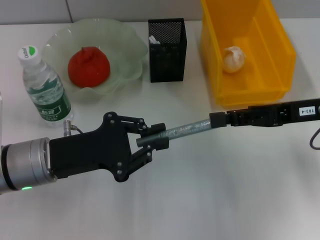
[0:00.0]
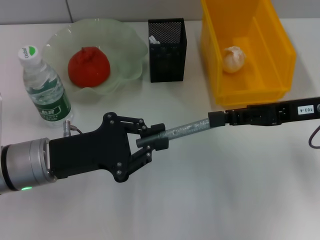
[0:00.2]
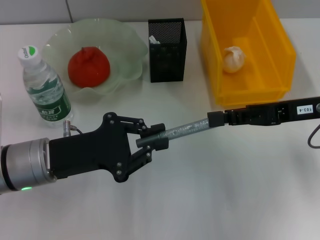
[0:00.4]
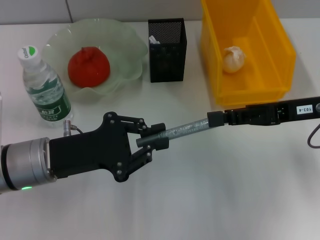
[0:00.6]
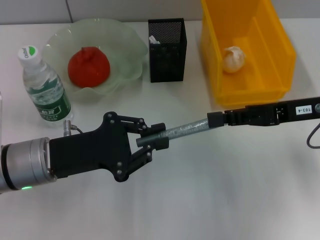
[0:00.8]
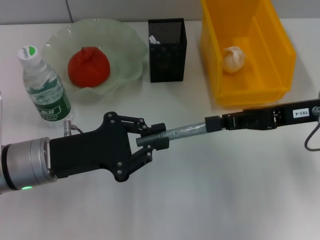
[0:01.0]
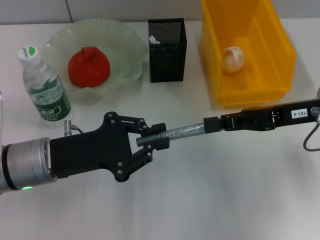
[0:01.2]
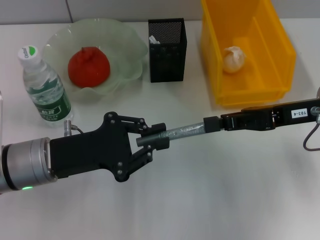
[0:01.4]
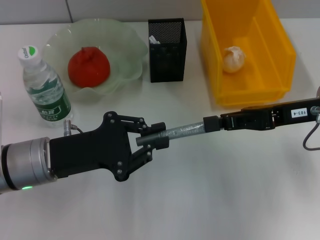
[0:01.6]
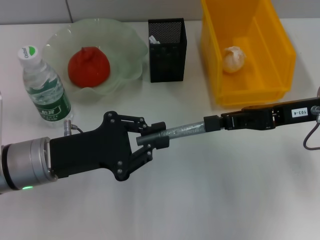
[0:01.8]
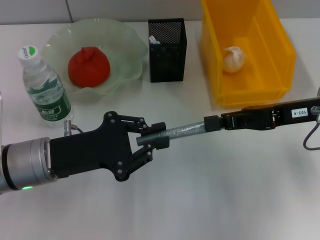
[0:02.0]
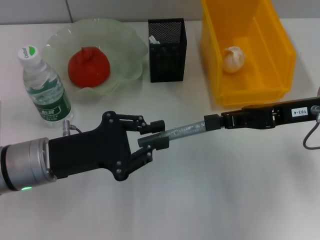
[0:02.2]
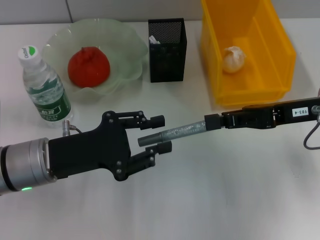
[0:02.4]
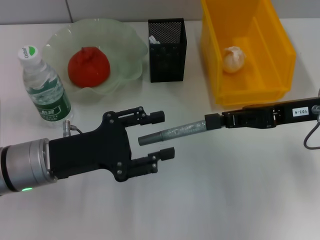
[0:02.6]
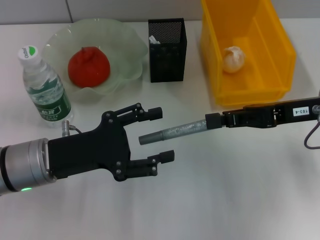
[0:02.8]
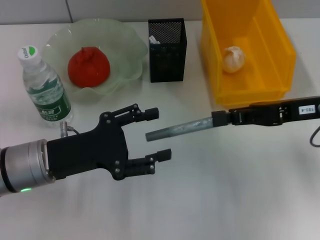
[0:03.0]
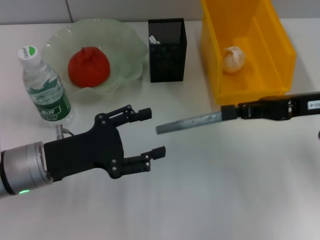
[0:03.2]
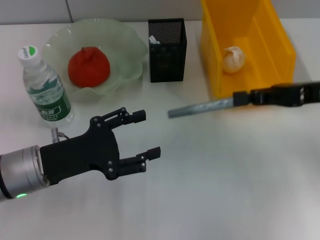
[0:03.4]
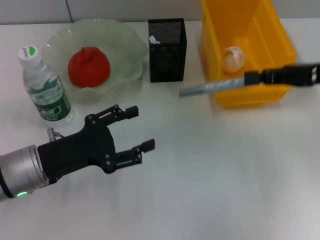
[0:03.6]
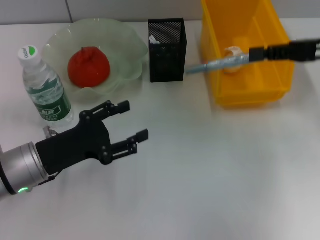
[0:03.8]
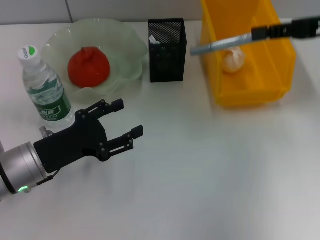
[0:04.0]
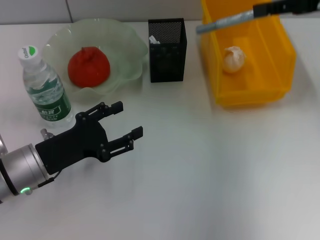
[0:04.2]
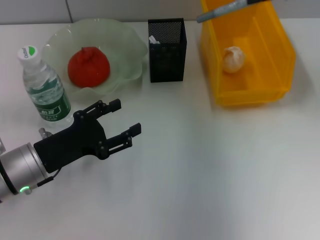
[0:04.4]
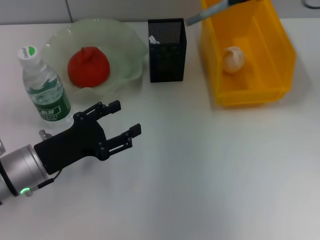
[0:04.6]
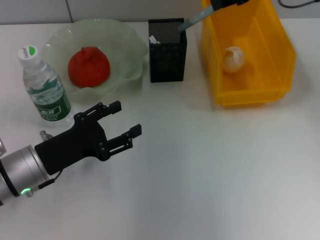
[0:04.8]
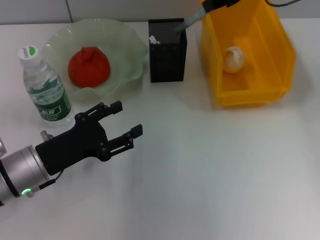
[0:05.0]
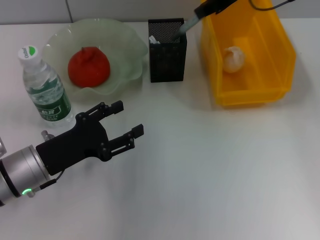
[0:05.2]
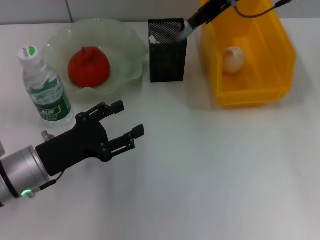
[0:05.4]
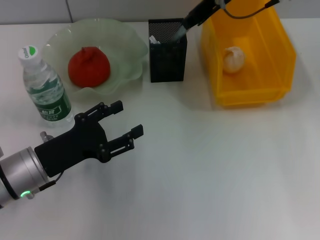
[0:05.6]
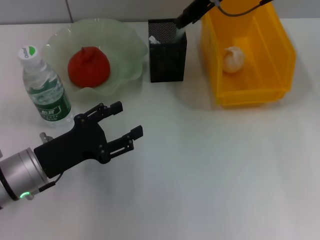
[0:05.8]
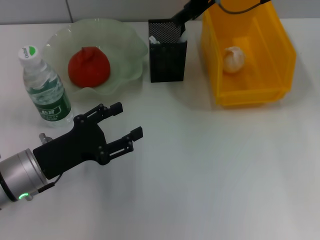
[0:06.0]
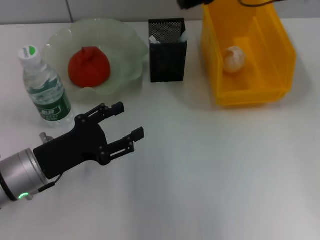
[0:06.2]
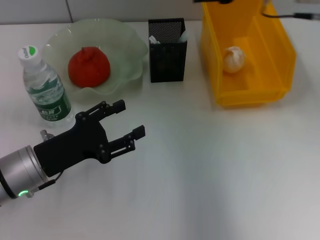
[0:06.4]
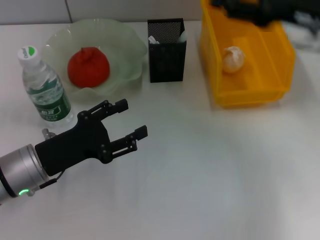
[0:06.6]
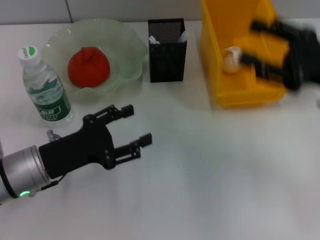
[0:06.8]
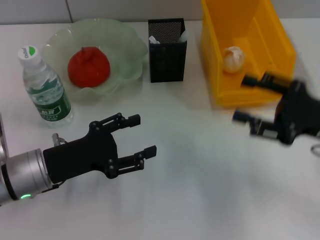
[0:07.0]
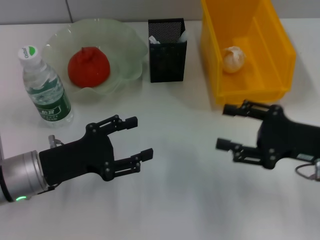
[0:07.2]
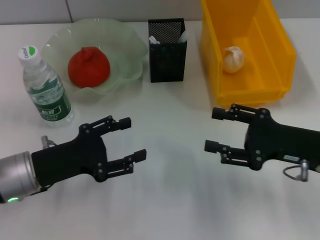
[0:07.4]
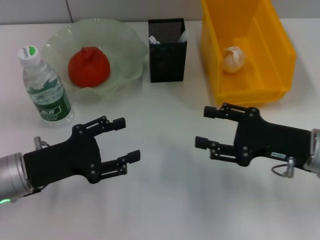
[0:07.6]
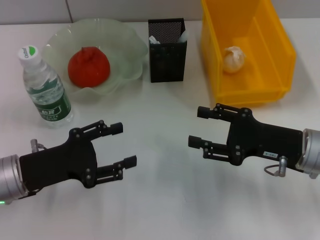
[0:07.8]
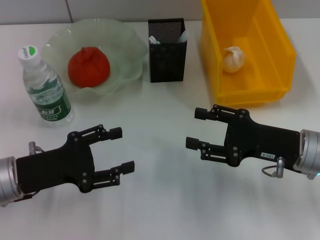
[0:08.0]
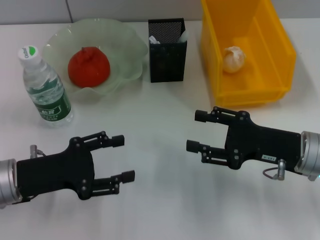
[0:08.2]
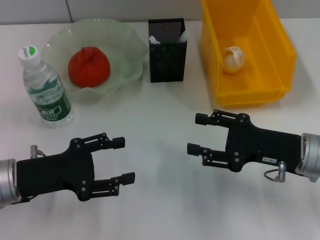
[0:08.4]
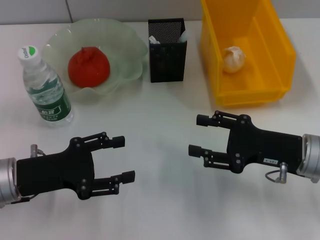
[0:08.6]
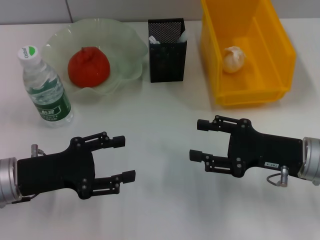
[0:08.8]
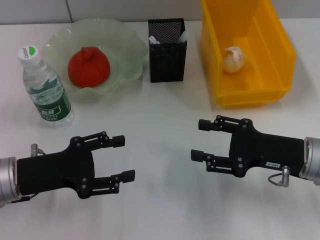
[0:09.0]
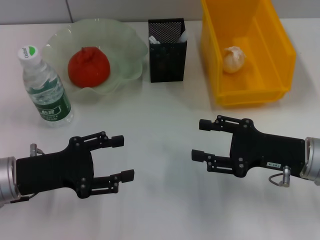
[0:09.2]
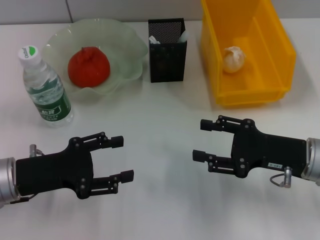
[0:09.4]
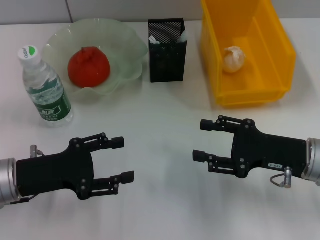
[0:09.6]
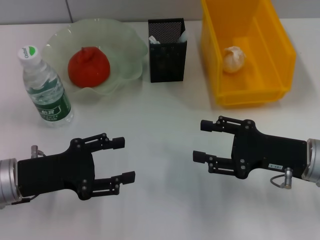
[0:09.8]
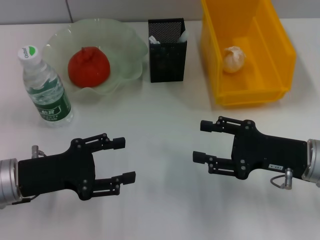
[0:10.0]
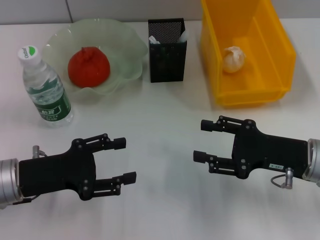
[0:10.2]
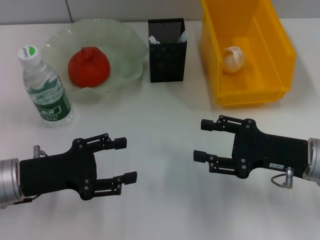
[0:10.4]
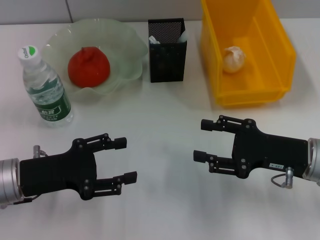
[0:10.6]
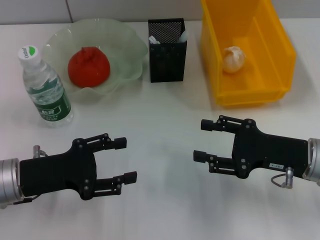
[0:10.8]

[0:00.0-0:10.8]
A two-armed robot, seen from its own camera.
Step, 0:00.0 to 0:02.6: Pass the gray glue from the left hand to the right hand.
Step, 0:02.8 to 0:05.8: Place the gray glue into the pen holder with the right hand.
0:00.0 to 0:01.6: Neither gripper changes place.
0:01.6 to 0:03.0: The left gripper opens.
0:03.0 to 0:04.6: The right gripper is displaced upward and forward by about 20 cm.
0:04.6 to 0:06.2: The right gripper is displaced to the left by about 10 cm, and opens up.
0:06.2 to 0:07.8: The right gripper moves downward, backward and to the right, some 25 cm.
0:07.8 to 0:09.2: The grippers stay close to where they were, moving slightly.
0:09.2 to 0:10.8: The two grippers keep their place.

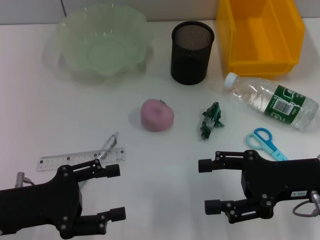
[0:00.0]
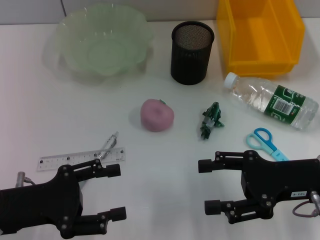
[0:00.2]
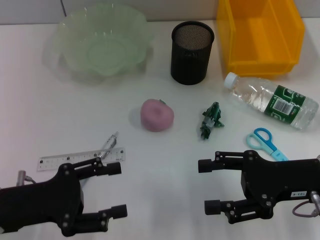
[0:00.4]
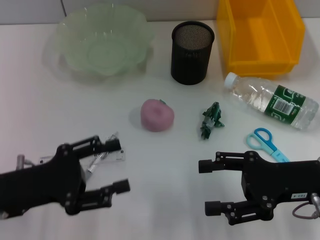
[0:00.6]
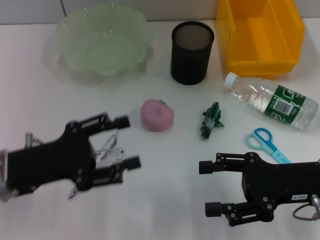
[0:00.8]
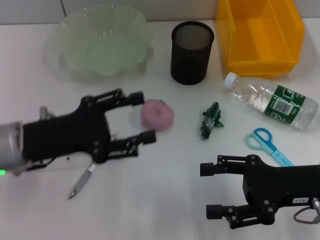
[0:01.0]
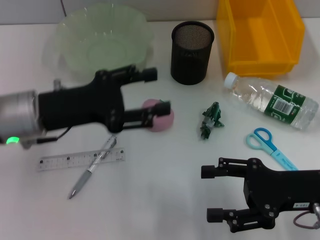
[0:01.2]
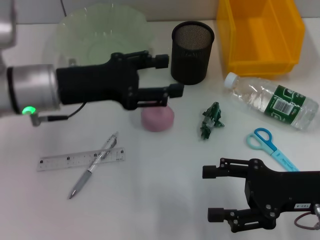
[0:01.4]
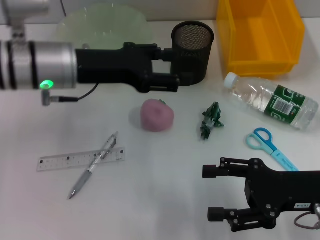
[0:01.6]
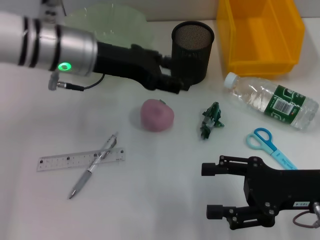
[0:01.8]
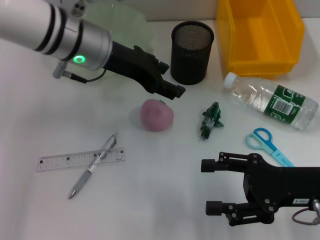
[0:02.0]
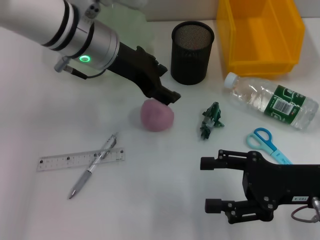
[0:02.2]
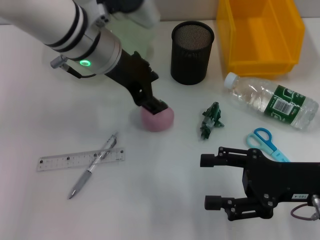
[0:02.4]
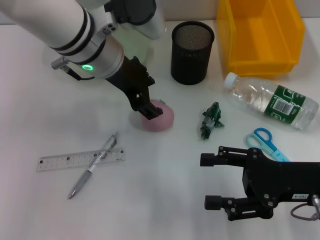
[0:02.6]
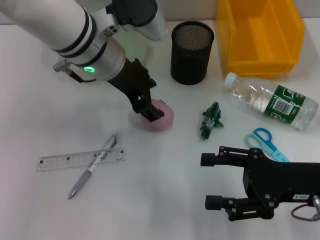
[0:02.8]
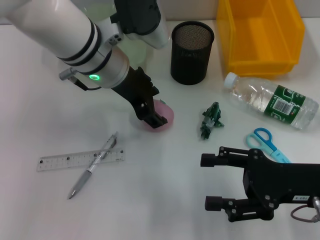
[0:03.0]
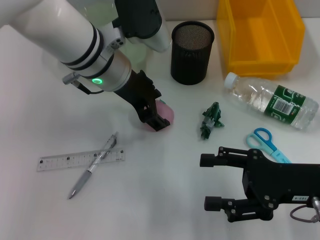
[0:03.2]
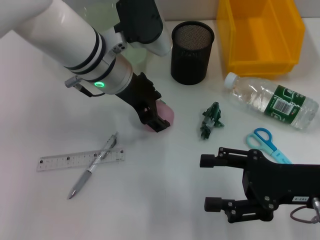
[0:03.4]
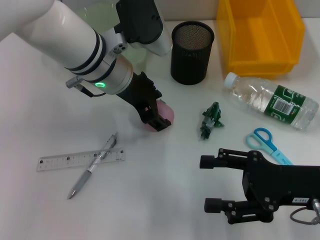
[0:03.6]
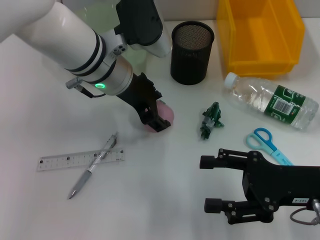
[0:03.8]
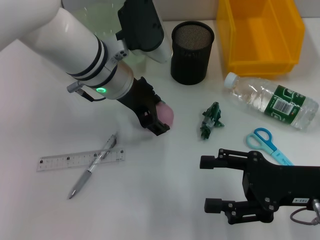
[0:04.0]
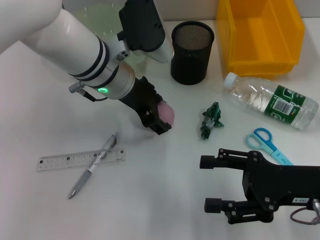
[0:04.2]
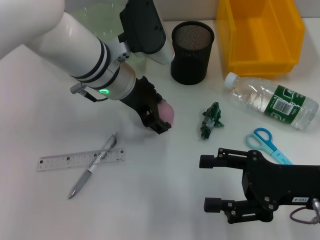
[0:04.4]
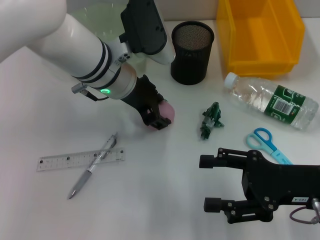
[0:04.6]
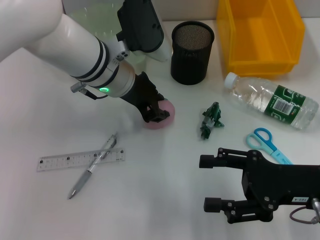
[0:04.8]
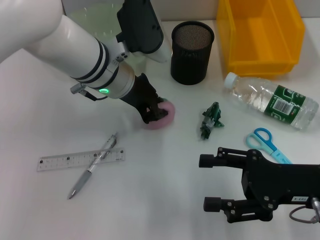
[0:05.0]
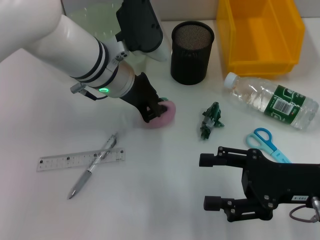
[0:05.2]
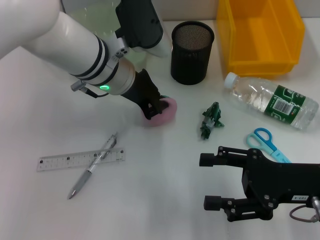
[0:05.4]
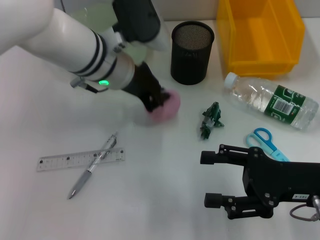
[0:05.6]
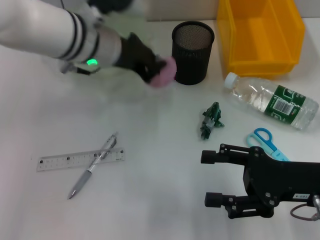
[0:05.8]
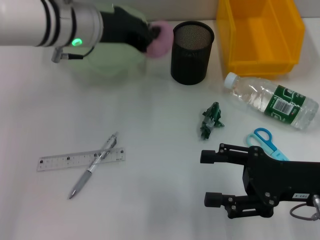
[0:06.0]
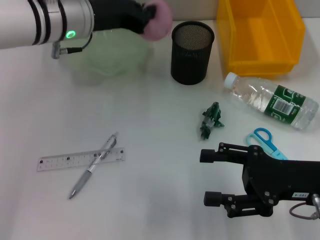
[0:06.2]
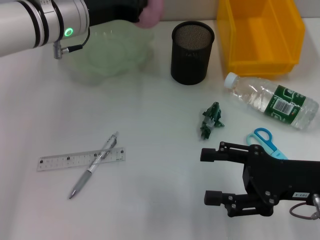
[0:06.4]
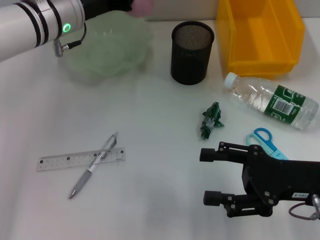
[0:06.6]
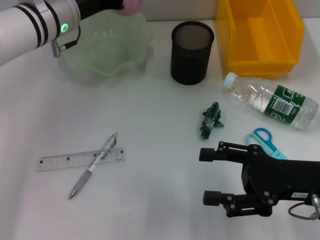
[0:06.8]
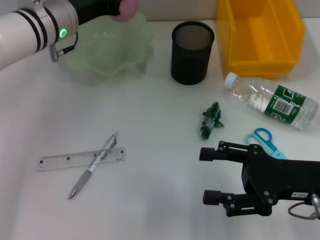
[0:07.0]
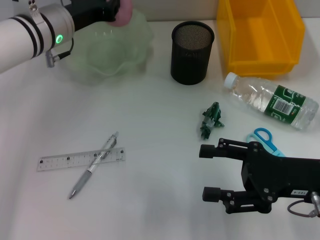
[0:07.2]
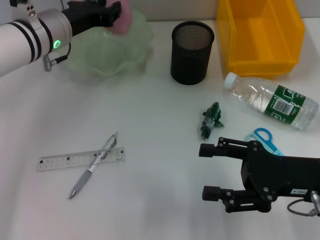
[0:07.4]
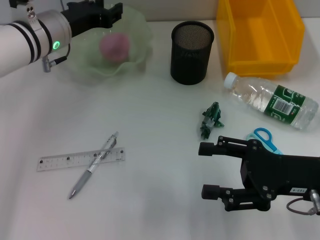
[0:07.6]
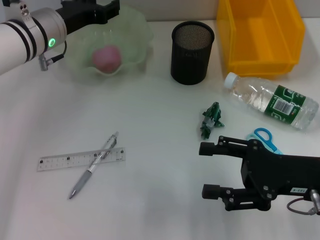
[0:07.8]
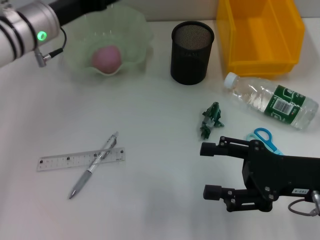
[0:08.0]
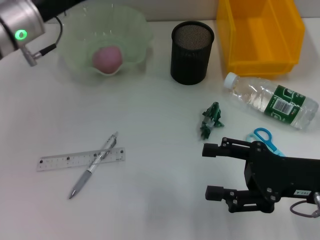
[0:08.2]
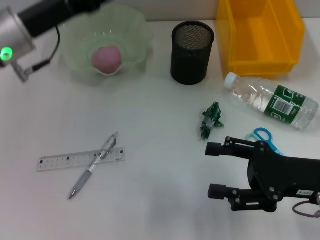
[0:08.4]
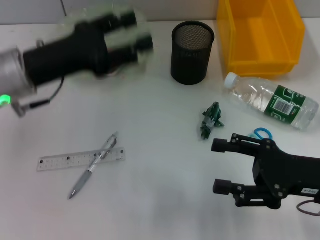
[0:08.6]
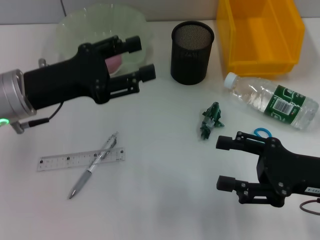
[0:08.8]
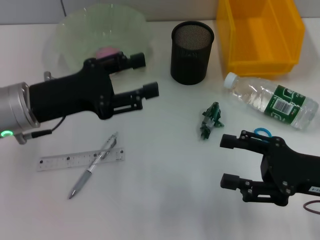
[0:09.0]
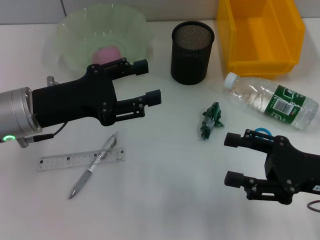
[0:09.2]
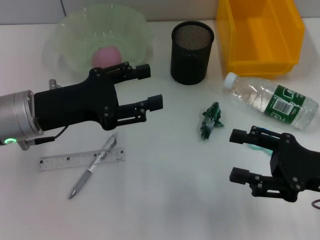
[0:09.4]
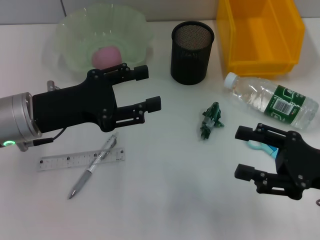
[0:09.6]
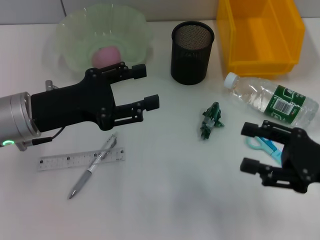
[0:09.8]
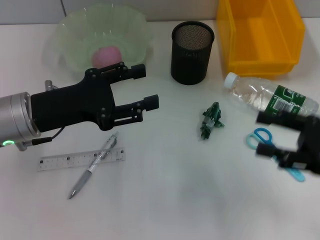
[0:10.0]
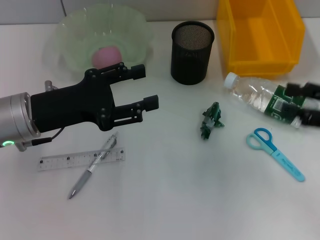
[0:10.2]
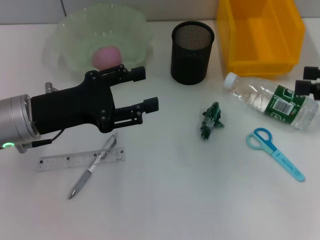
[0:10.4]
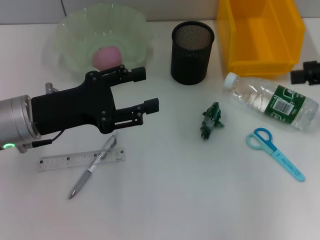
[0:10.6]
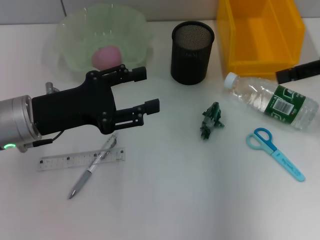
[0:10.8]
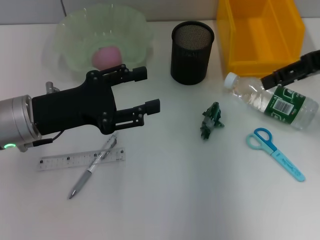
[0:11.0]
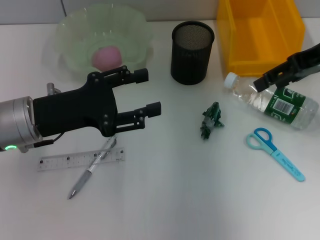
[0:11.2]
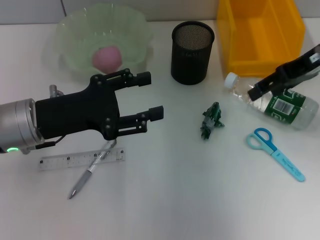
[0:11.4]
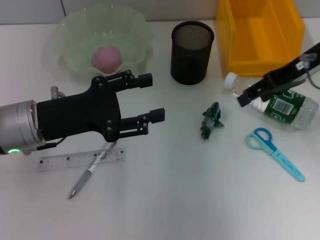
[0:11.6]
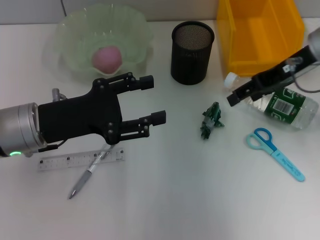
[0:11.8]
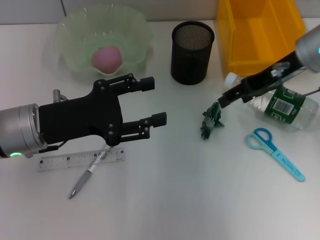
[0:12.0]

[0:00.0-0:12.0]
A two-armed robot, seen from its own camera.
Step, 0:00.0 to 0:05.0: Grab the peach with the left hand.
Step, 0:05.4 to 0:07.8: Place the peach into the fruit bowl with the left hand.
0:00.0 to 0:01.6: The left gripper travels forward, upward and to the right by roughly 20 cm.
0:01.6 to 0:03.0: The left gripper goes about 10 cm to the right.
0:03.0 to 0:04.4: The grippers make only small movements.
0:04.4 to 0:06.0: The left gripper travels to the left by roughly 5 cm, and closes up.
0:06.0 to 0:07.6: The left gripper heads downward, covering about 5 cm.
0:07.6 to 0:09.0: The left gripper is displaced backward by about 10 cm, and opens.
0:09.0 to 0:10.4: The right gripper goes about 15 cm upward, to the right and forward.
0:10.4 to 0:12.0: The right gripper heads to the left and forward, covering roughly 20 cm.
